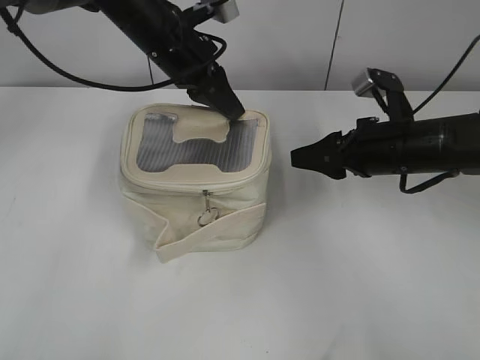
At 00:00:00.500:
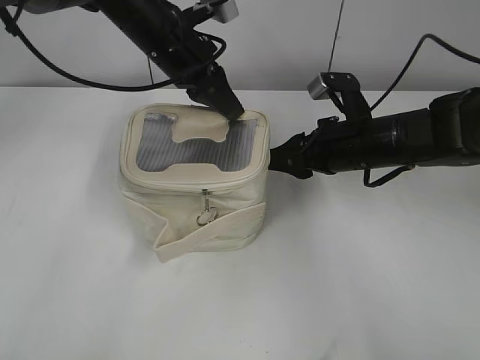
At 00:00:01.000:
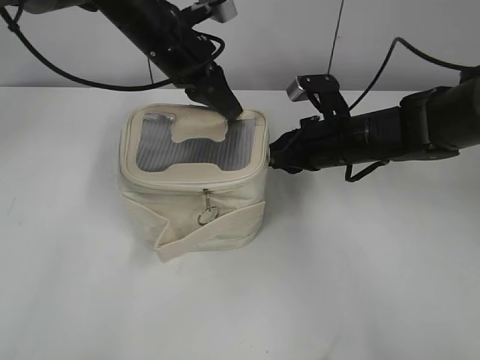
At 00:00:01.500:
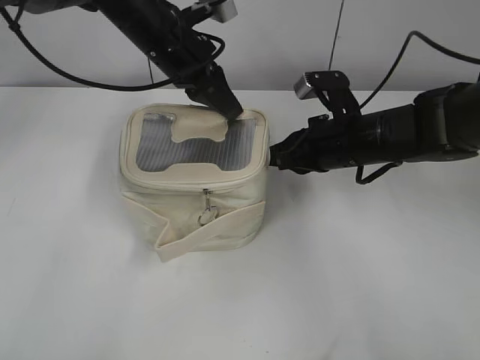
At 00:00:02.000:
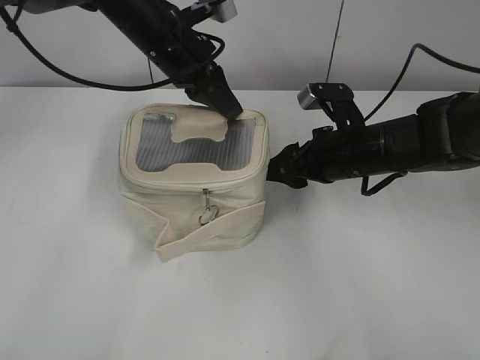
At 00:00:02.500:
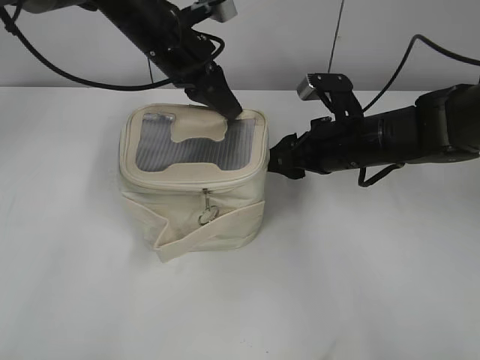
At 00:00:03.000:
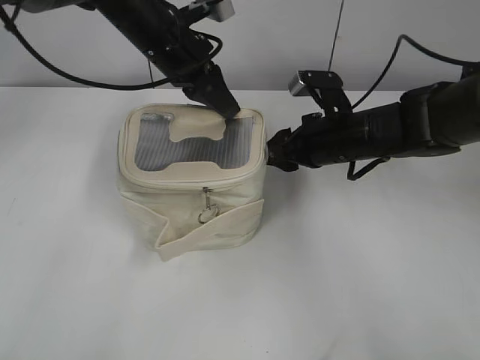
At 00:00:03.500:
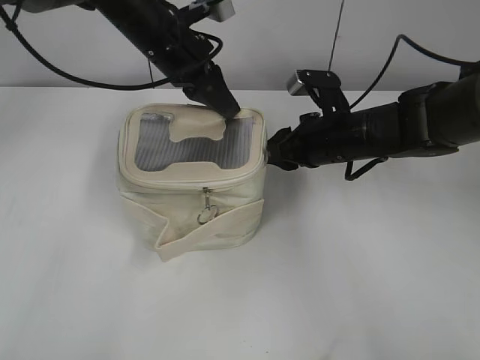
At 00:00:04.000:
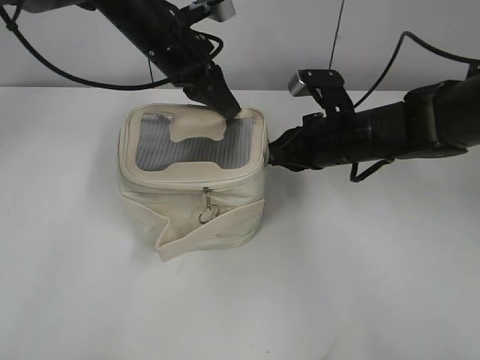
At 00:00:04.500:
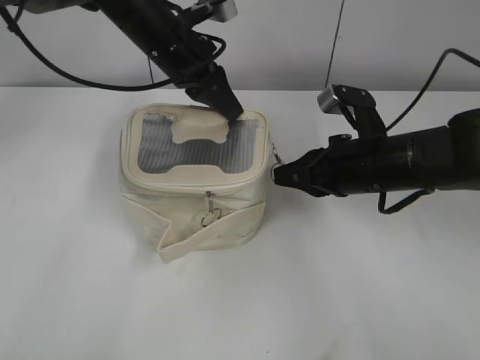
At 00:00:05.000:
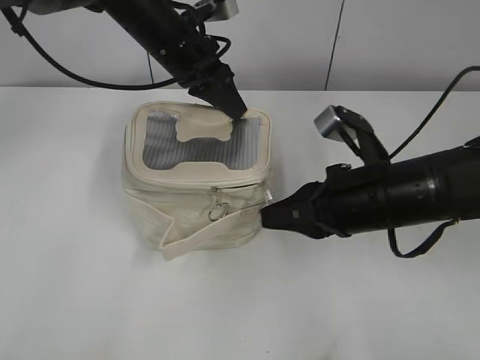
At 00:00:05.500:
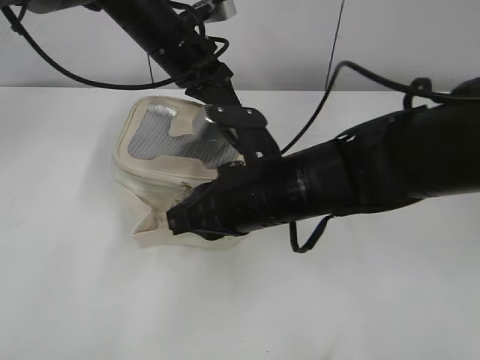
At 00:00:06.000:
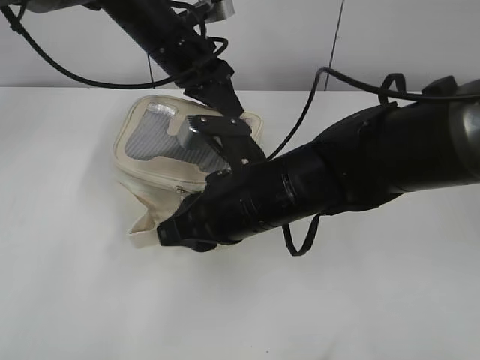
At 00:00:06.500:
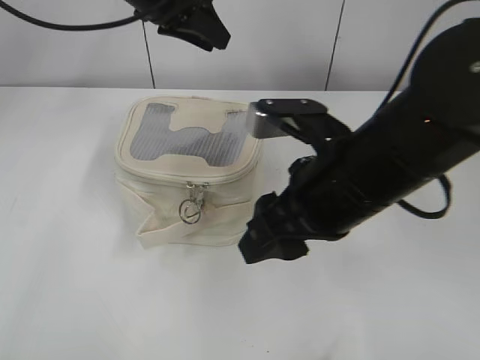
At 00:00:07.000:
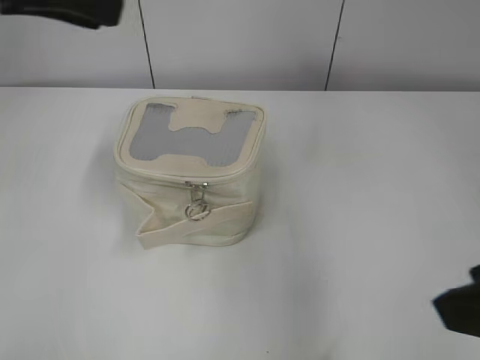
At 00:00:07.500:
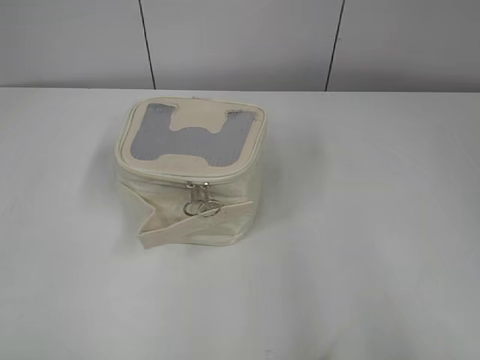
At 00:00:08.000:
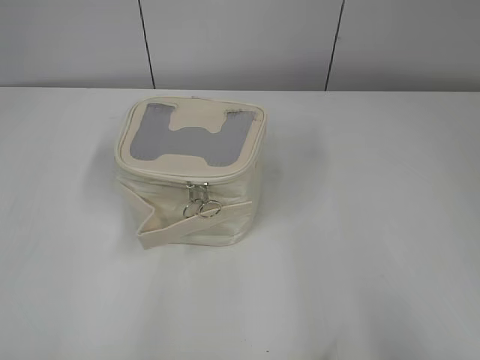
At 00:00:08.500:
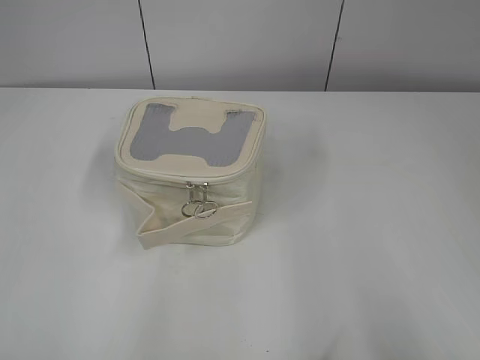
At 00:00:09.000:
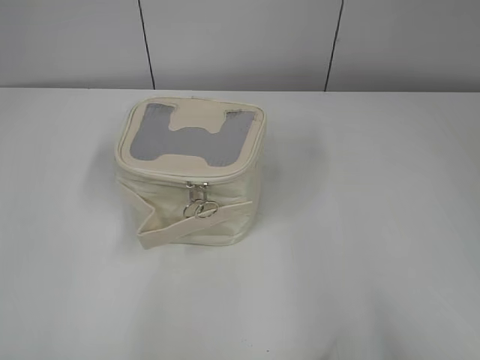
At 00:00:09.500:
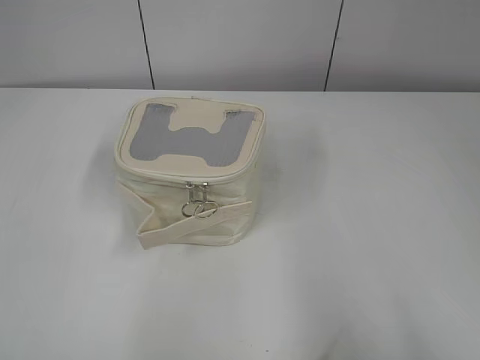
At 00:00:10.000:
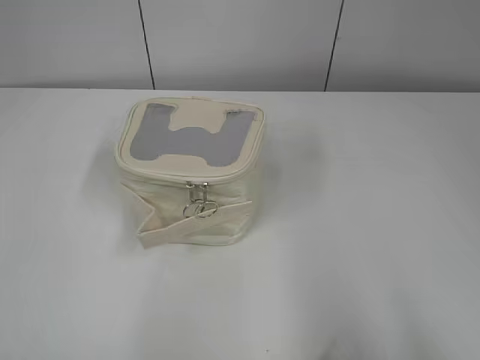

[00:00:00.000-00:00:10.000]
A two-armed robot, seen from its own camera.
Step, 00:00:00.000 to 00:00:05.500: Zip up the bag with your right hand.
00:00:00.000 to 00:00:02.000: The right gripper moves about 5 cm, and closes, then reopens.
00:00:02.000 to 00:00:04.000: The right gripper closes its fingers.
00:00:04.000 to 00:00:06.000: The right gripper shifts some 15 cm backward and to the left.
00:00:06.000 to 00:00:08.000: The right gripper shifts some 40 cm to the right, backward and upward, and opens. Meanwhile the left gripper goes roughly 50 cm backward and to the left, and opens its fingers.

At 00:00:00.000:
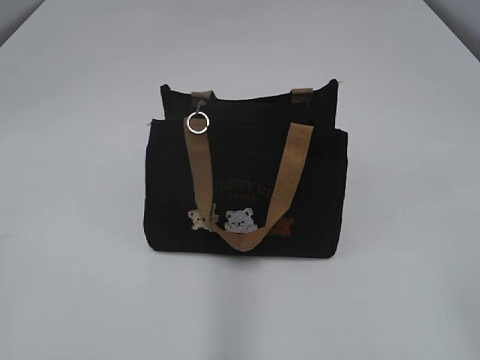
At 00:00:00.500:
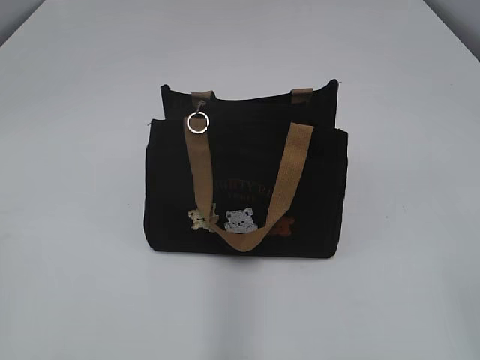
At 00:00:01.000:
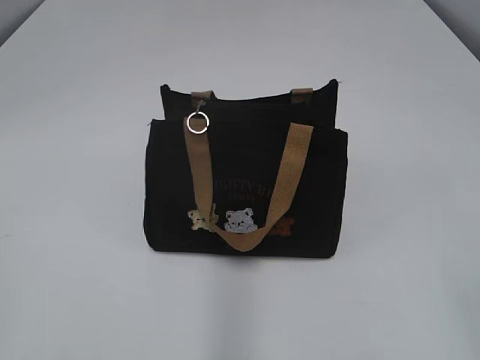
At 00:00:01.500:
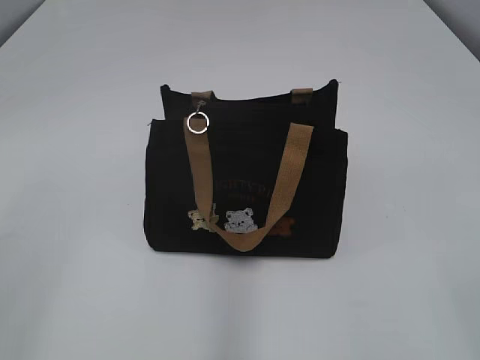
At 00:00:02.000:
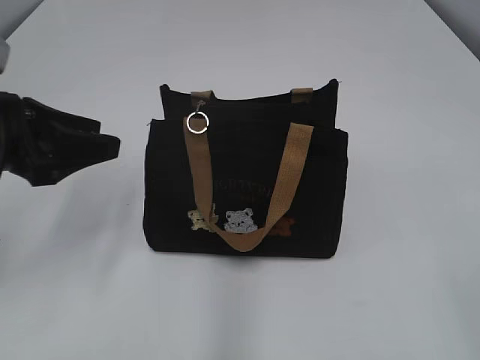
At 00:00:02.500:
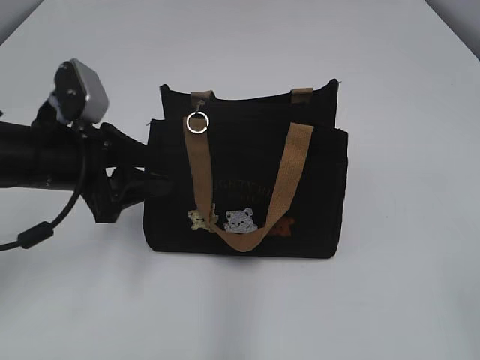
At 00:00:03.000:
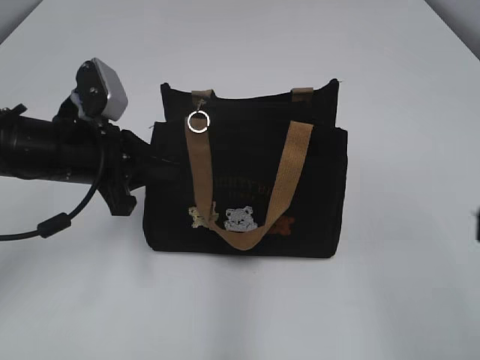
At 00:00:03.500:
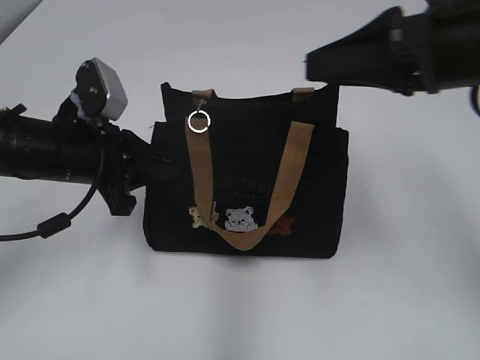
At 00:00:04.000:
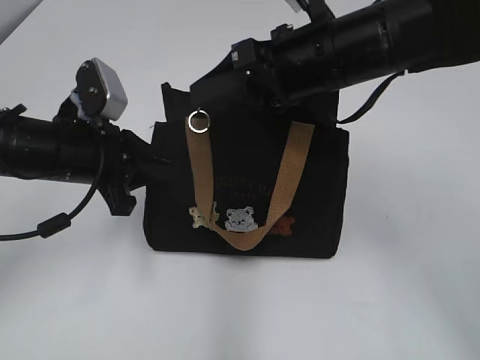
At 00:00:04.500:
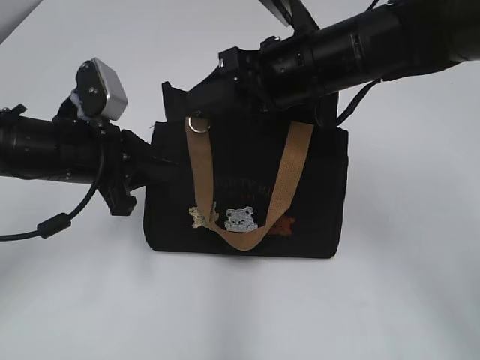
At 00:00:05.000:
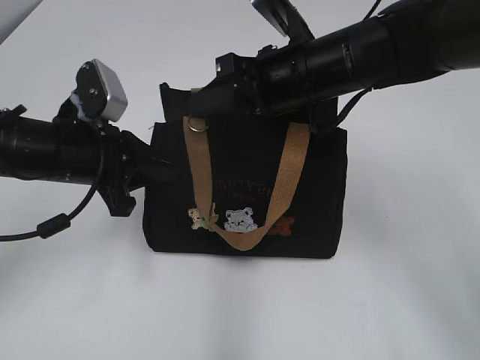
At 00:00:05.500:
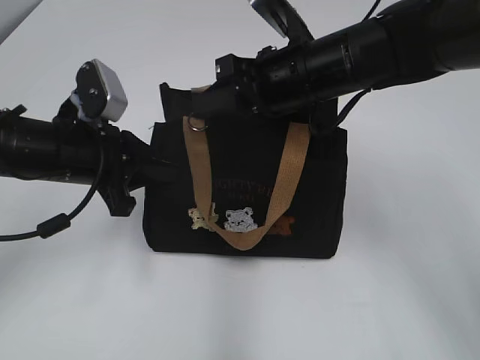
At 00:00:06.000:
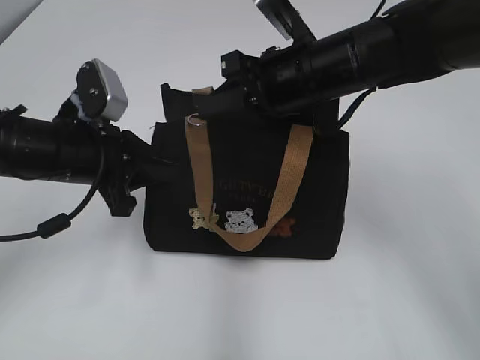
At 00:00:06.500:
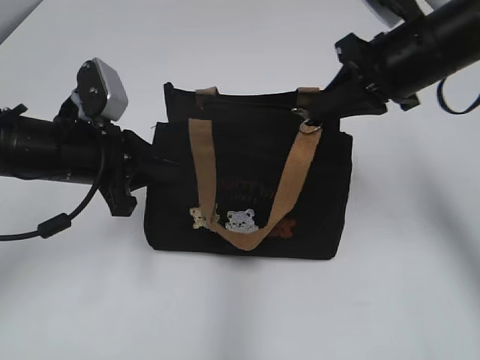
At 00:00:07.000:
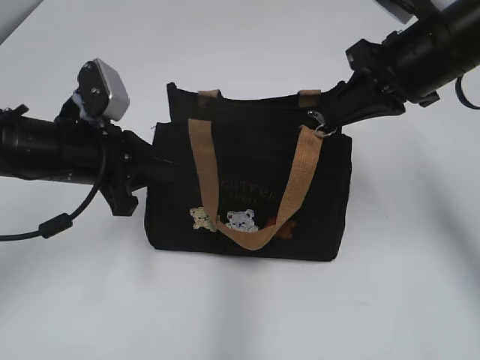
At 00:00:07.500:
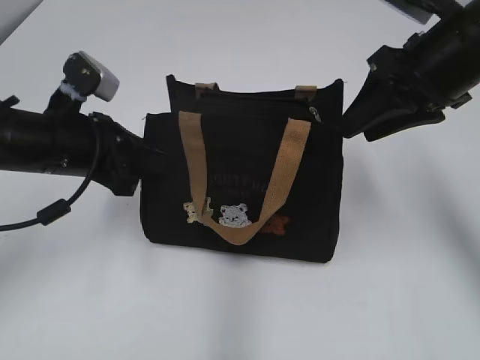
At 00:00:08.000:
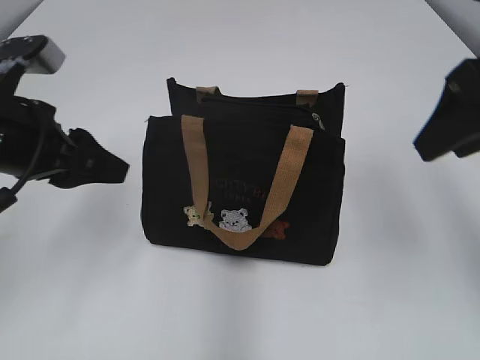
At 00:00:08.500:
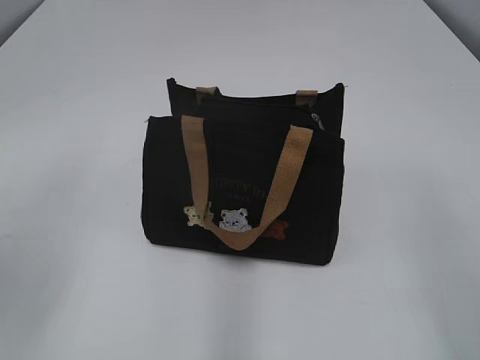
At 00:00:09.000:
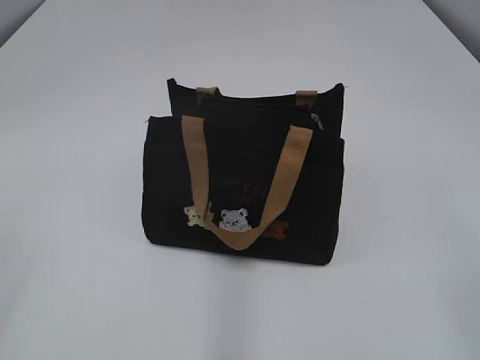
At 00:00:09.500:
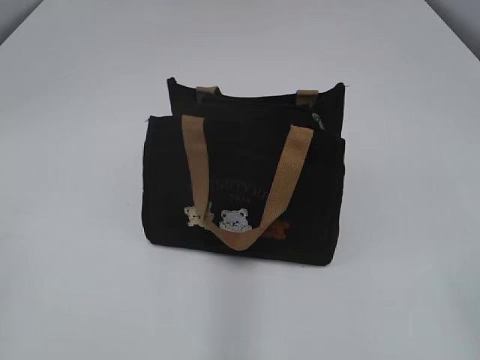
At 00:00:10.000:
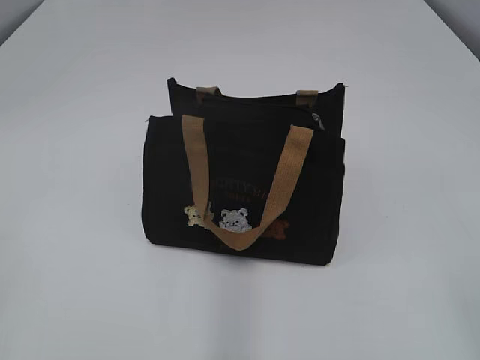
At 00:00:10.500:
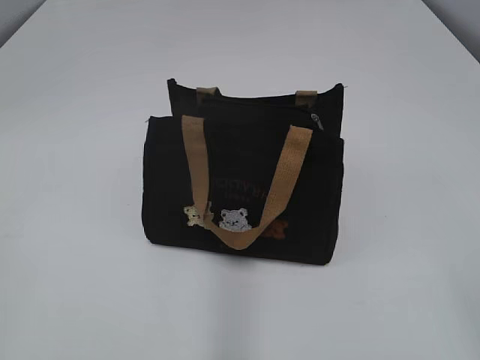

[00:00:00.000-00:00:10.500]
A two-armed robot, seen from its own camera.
Step, 00:00:00.000 to 00:00:07.000: Pull open the zipper with your right hand.
00:00:02.000 to 00:00:04.000: The right gripper heads forward and to the left, covering roughly 35 cm. The left gripper moves downward, to the right and forward, about 10 cm, and closes its fingers.
00:00:04.000 to 00:00:06.500: The right gripper shifts approximately 10 cm to the right, and closes.
00:00:06.500 to 00:00:08.500: The left gripper is displaced upward, backward and to the left by some 20 cm, and opens its fingers. The right gripper goes about 25 cm backward, and opens its fingers.
00:00:08.500 to 00:00:10.500: The left gripper heads backward, covering some 20 cm.
